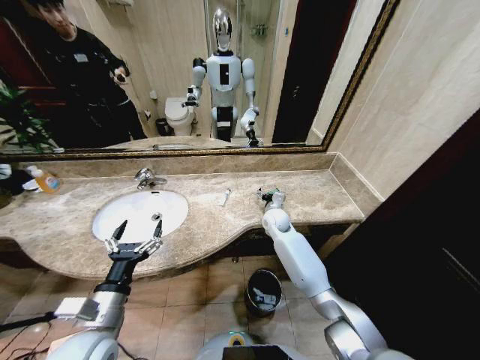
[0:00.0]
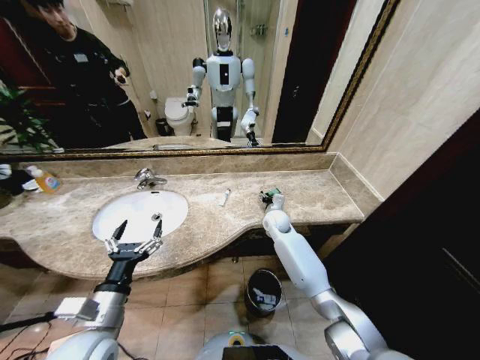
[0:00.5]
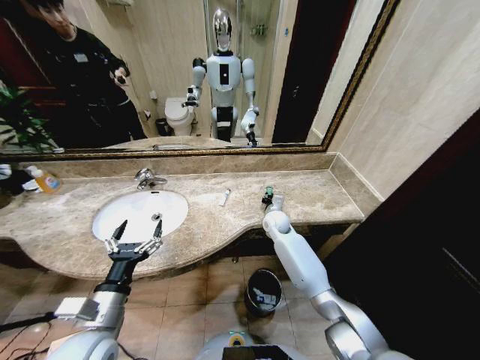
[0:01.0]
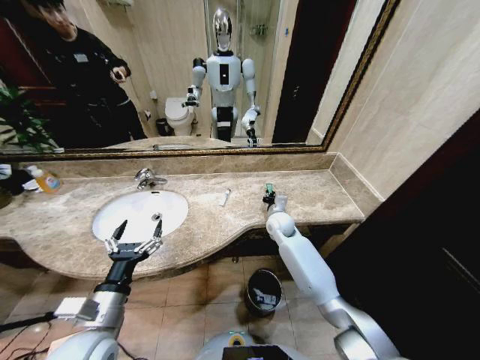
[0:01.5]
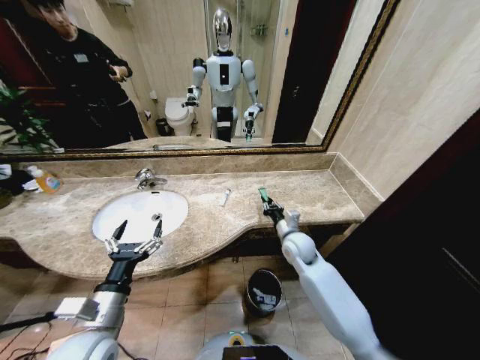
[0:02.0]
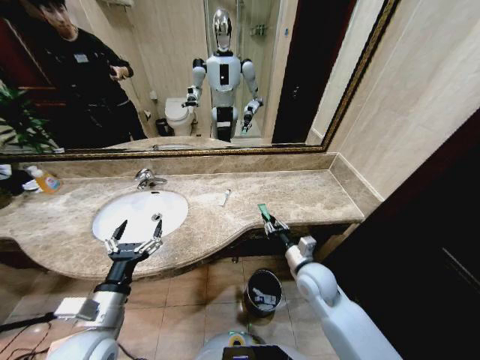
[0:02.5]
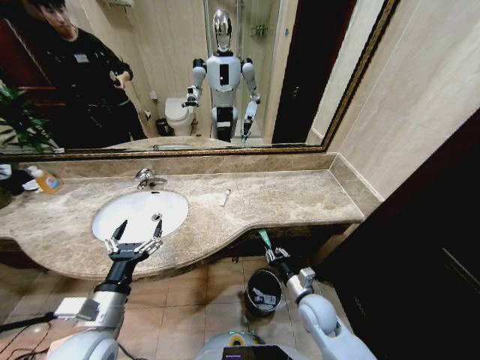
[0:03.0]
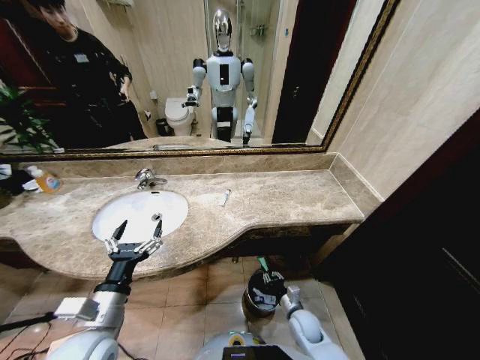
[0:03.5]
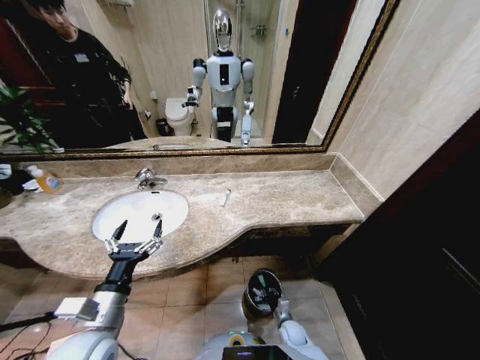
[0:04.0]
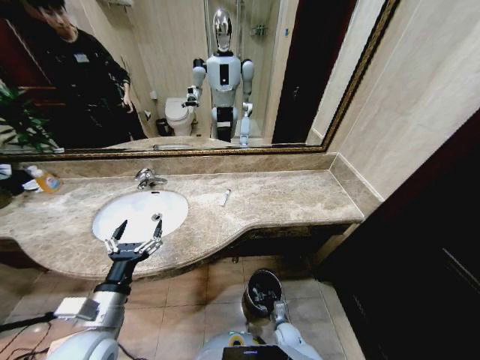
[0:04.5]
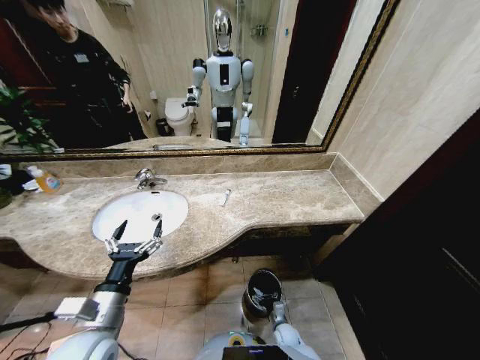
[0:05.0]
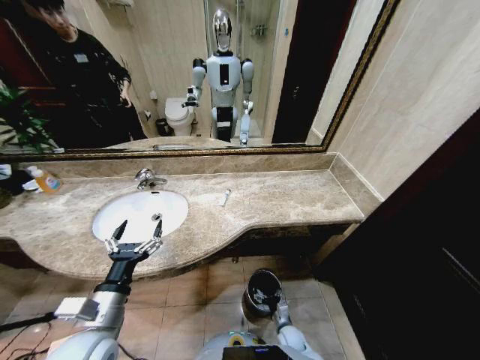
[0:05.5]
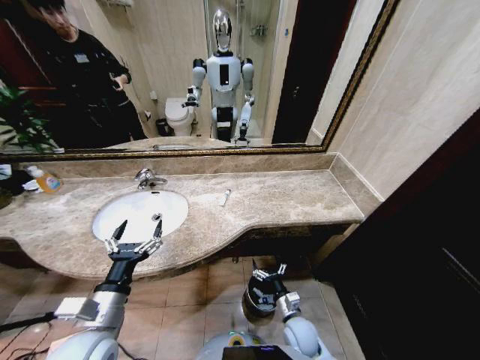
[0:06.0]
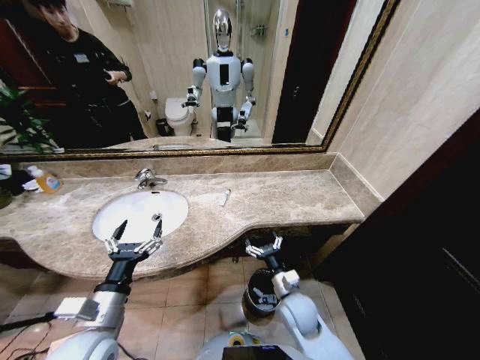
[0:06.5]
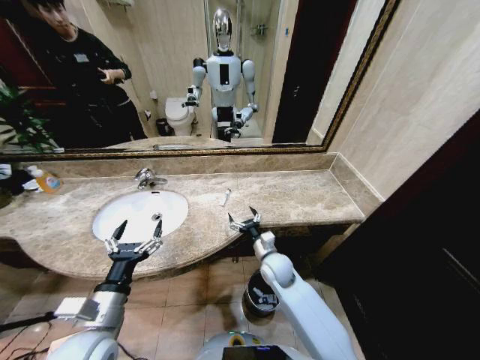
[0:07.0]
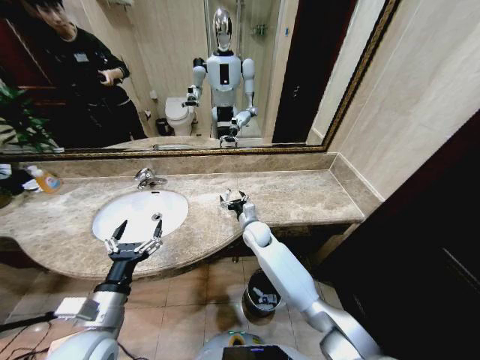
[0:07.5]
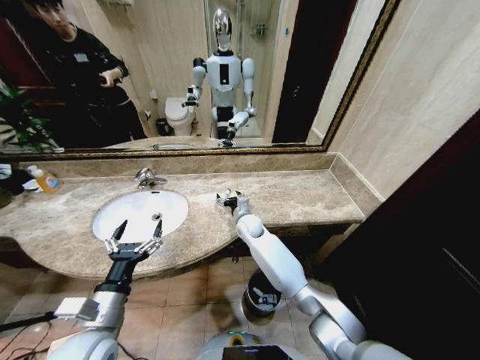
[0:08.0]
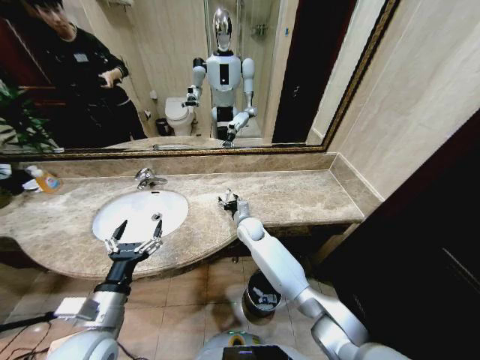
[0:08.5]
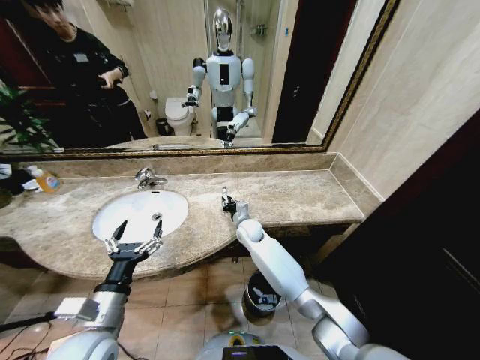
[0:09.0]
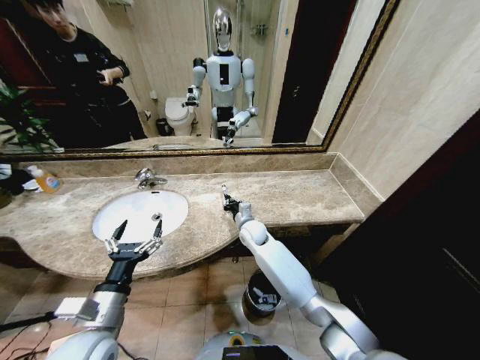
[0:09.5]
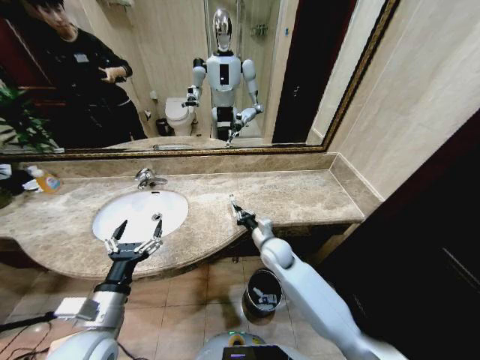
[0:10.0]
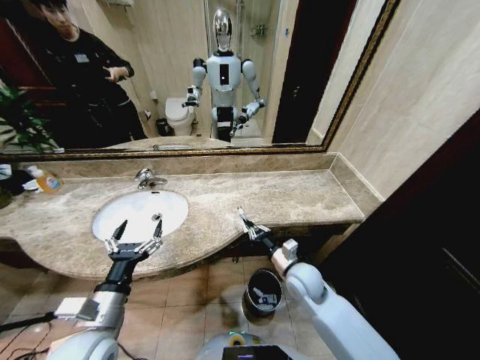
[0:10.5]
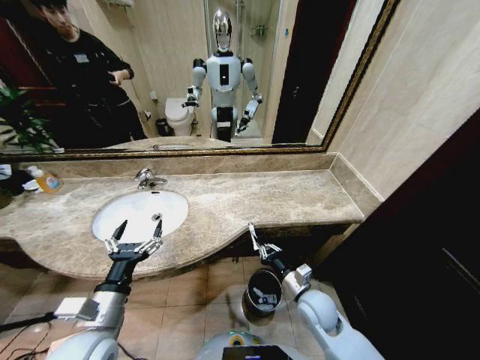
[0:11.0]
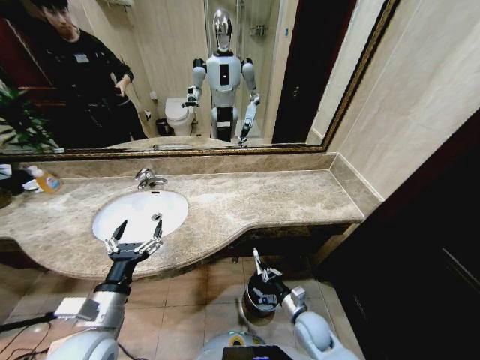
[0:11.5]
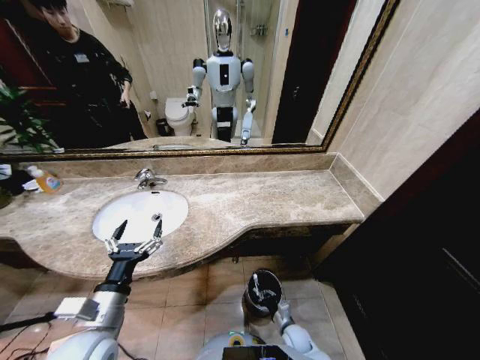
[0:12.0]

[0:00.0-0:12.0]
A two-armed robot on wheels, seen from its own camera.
Task of the whole recording: Pick up the trash from the sink and place it in the trash bin.
0:00.0 to 0:02.0: The right gripper moves backward, some 10 cm, and closes.
0:02.0 to 0:04.0: The right gripper goes about 35 cm downward and backward.
0:04.0 to 0:06.0: The right gripper is displaced upward by some 15 cm, and opens its fingers.
0:06.0 to 0:08.0: The right gripper is displaced forward, upward and to the left by approximately 35 cm.
0:08.0 to 0:10.0: The right gripper shifts about 15 cm backward and to the right, and closes its fingers.
0:10.0 to 0:12.0: The right gripper heads downward and backward, covering about 35 cm.

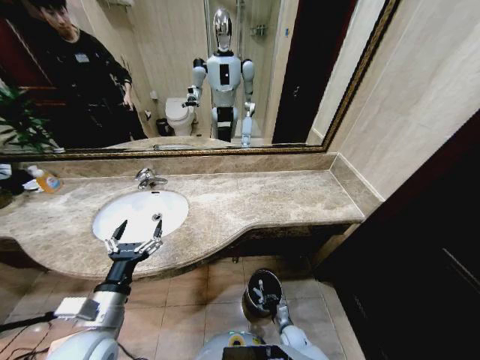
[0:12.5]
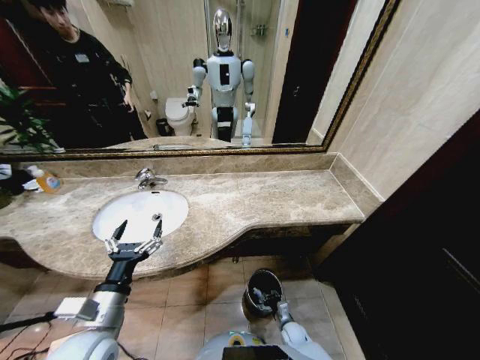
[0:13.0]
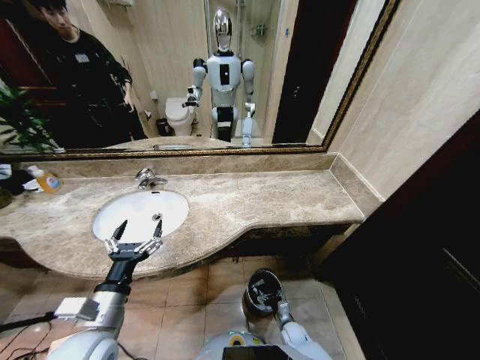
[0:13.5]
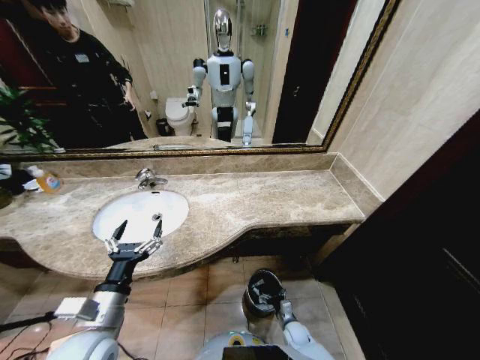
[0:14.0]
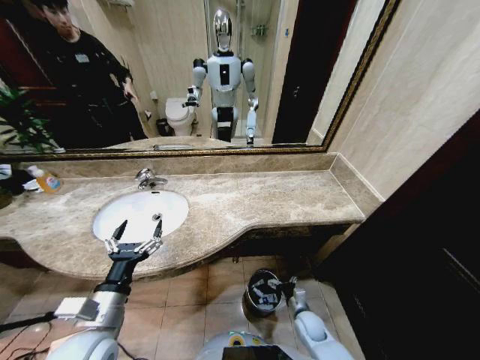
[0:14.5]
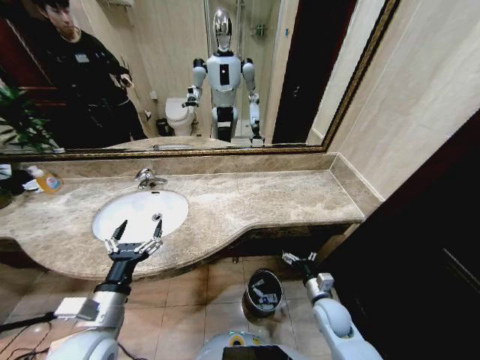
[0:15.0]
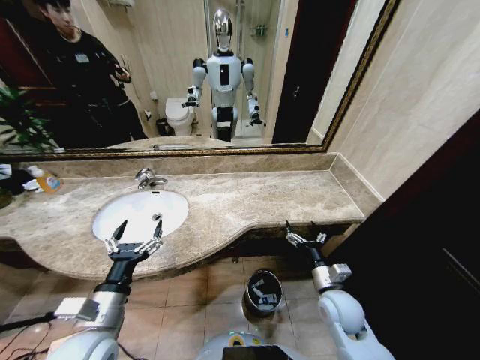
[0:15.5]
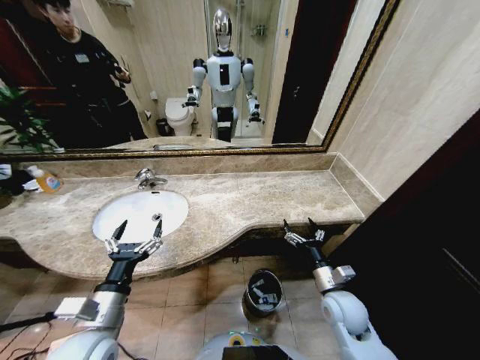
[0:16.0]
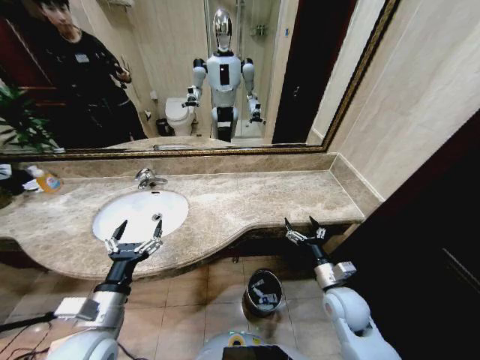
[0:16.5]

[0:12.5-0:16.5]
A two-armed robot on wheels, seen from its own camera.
Task of the whole recording: Pick up the trash from the sink and place it in the trash bin.
0:12.5 to 0:14.5: The right gripper moves upward, roughly 10 cm, and opens.
0:14.5 to 0:16.5: The right gripper moves upward, roughly 20 cm.

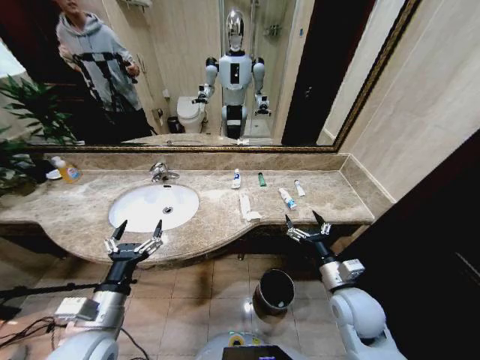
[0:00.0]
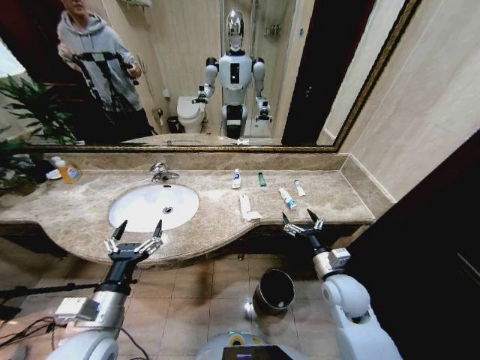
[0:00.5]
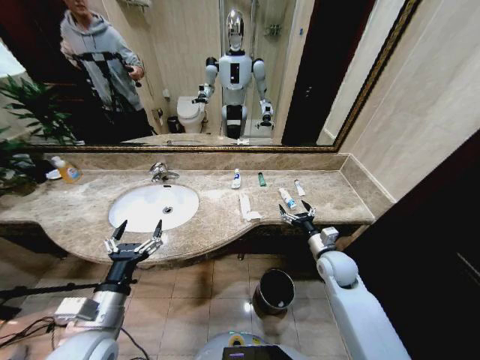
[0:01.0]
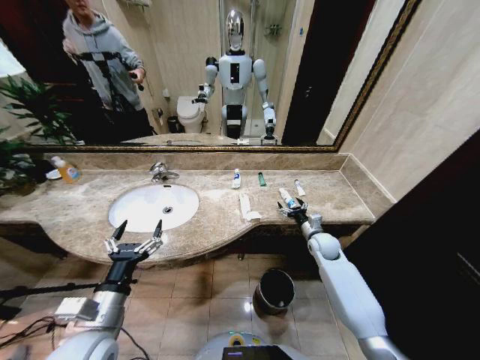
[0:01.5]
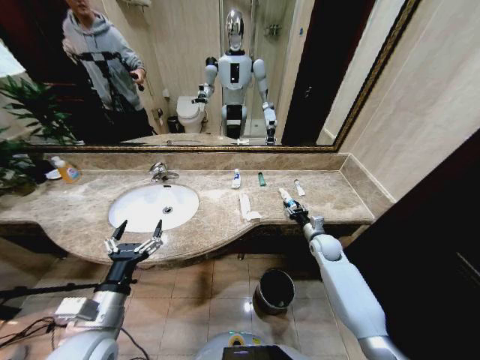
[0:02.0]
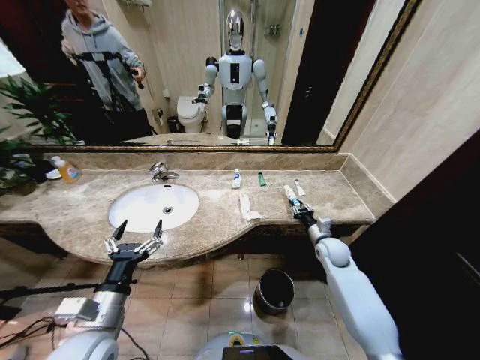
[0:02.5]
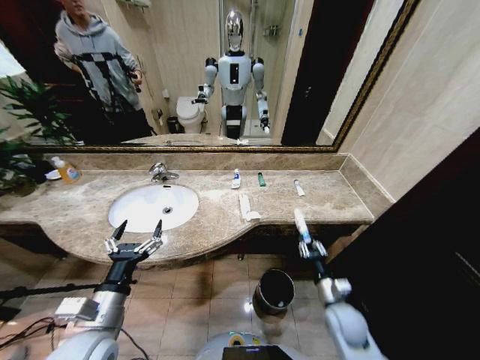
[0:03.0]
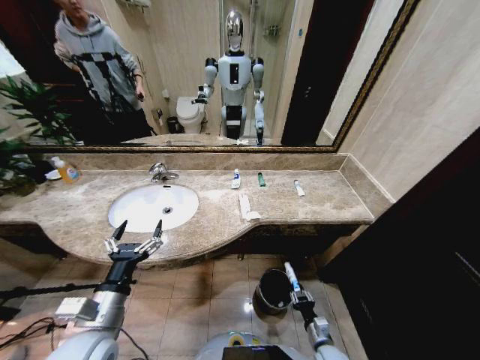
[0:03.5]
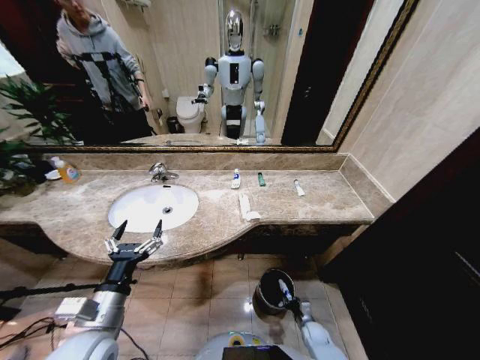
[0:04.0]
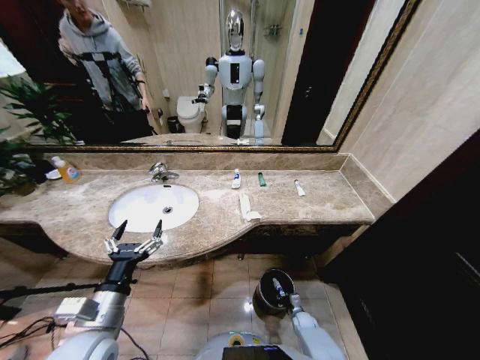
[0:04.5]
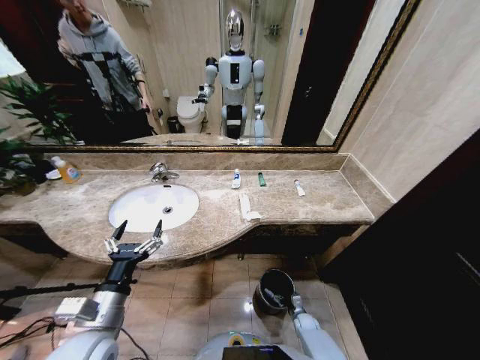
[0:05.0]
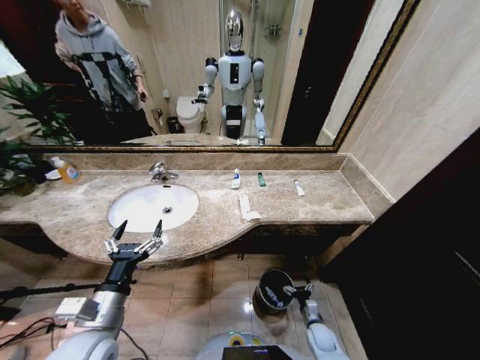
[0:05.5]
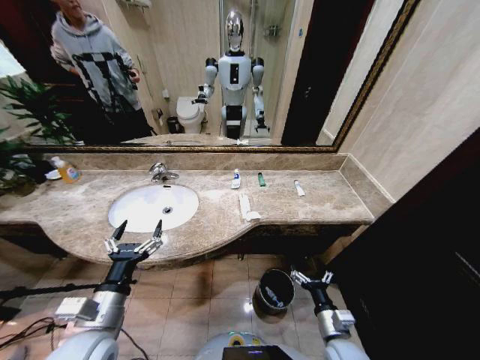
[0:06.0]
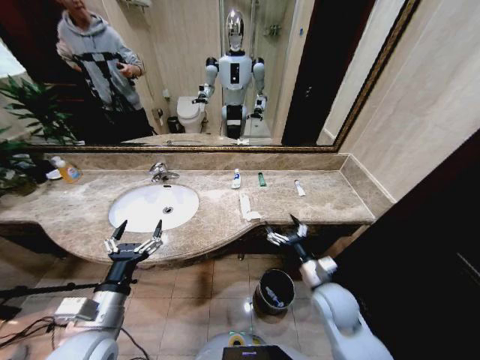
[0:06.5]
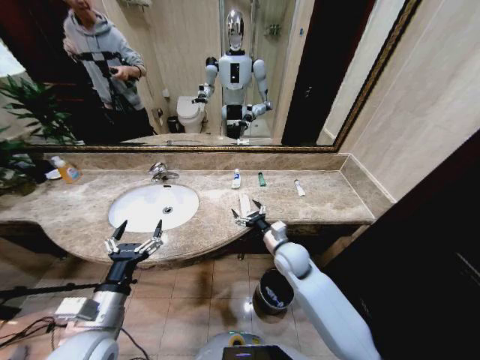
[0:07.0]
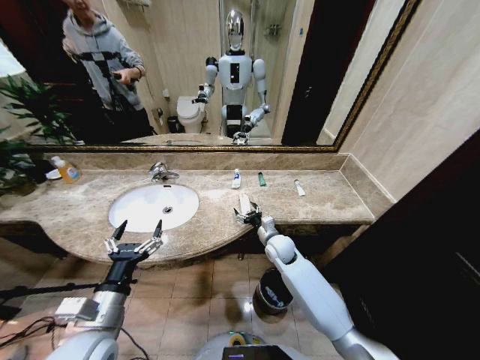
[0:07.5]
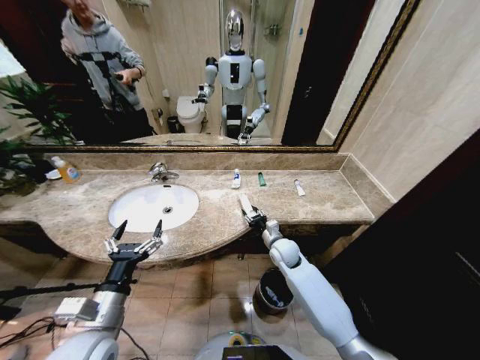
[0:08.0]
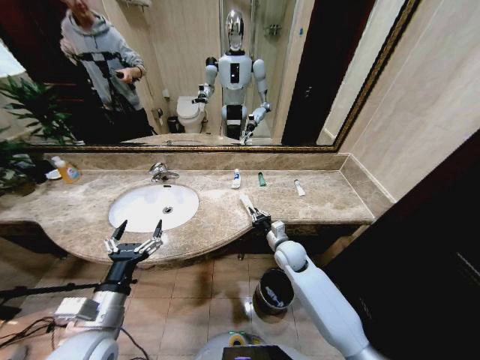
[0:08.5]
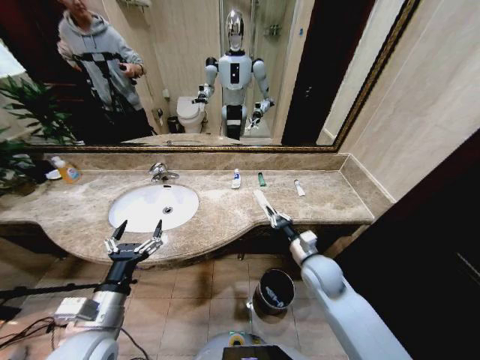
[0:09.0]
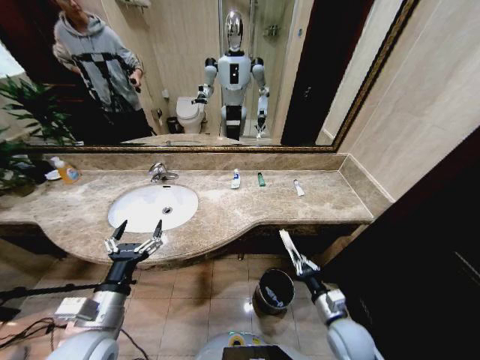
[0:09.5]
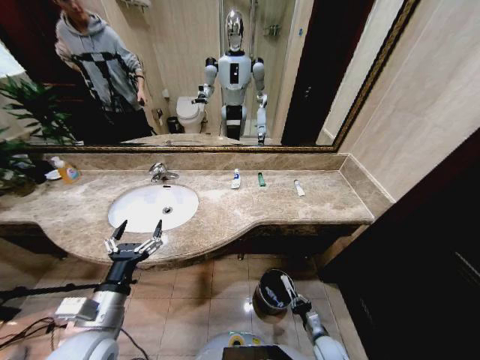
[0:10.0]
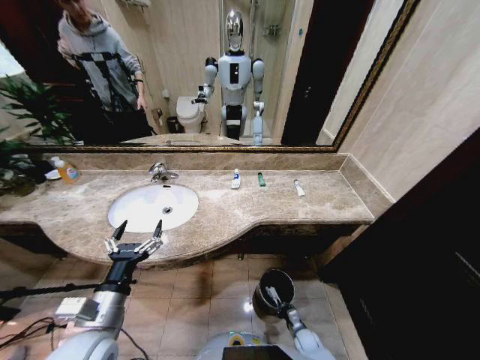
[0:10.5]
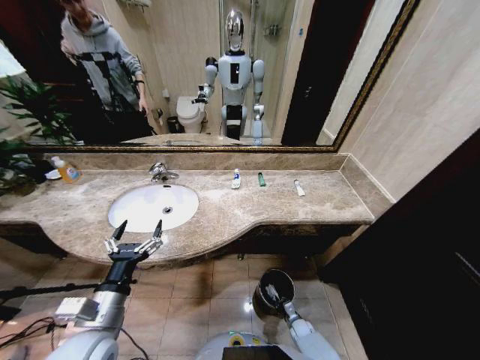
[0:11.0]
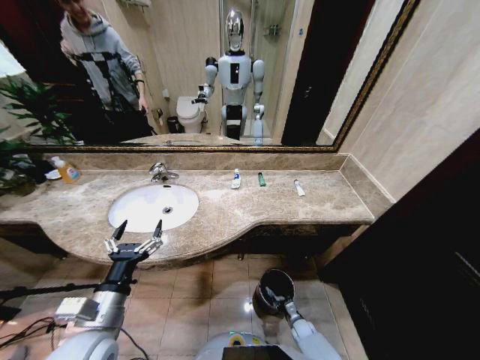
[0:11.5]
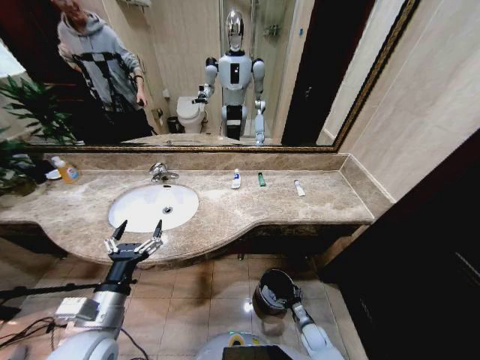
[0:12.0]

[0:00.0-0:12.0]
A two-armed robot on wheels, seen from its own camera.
Task of the whole recording: Pick up the trash from the sink and place it in the trash bin.
0:02.0 to 0:04.0: The right gripper moves downward and backward, about 35 cm.
0:04.0 to 0:06.0: The right gripper heads upward, covering some 25 cm, and opens.
0:06.0 to 0:08.0: The right gripper shifts about 25 cm forward, and closes up.
0:08.0 to 0:10.0: The right gripper goes approximately 35 cm backward, downward and to the right, and closes.
0:10.0 to 0:12.0: The right gripper opens up.
